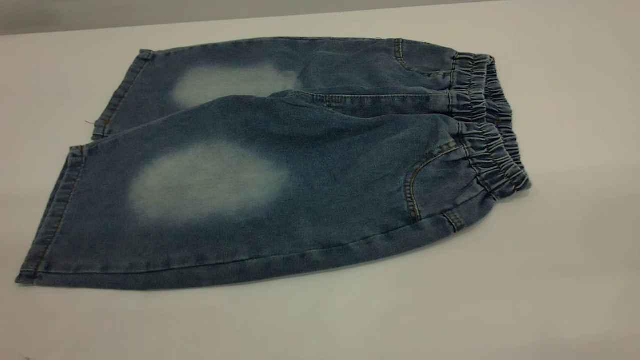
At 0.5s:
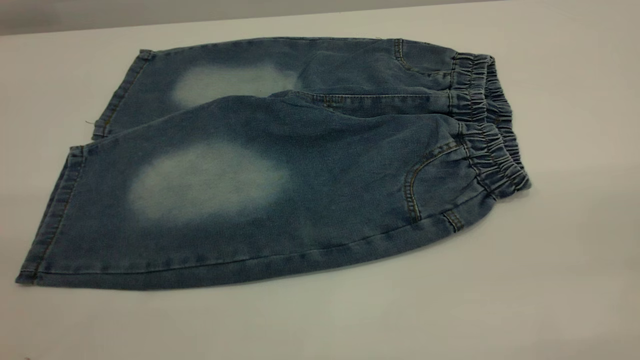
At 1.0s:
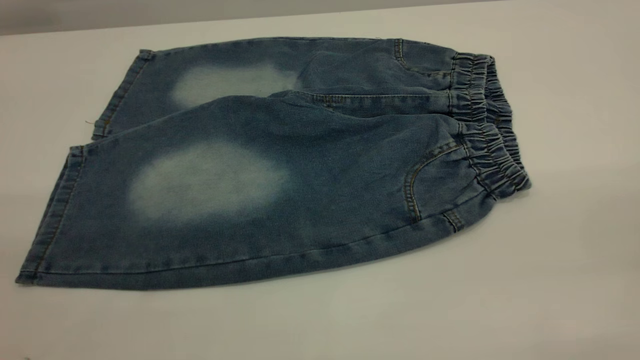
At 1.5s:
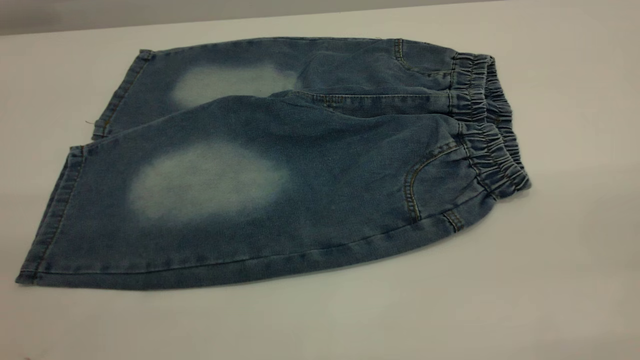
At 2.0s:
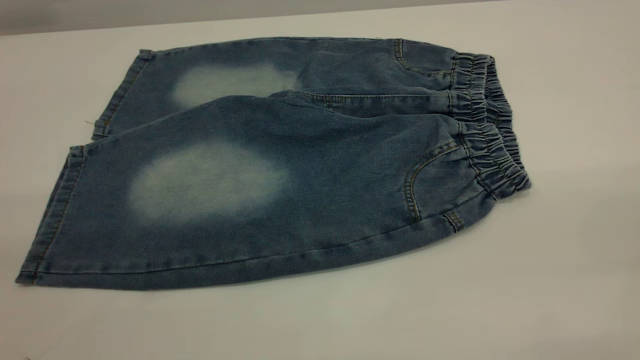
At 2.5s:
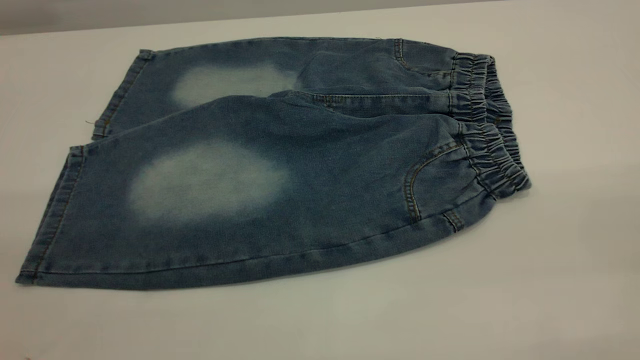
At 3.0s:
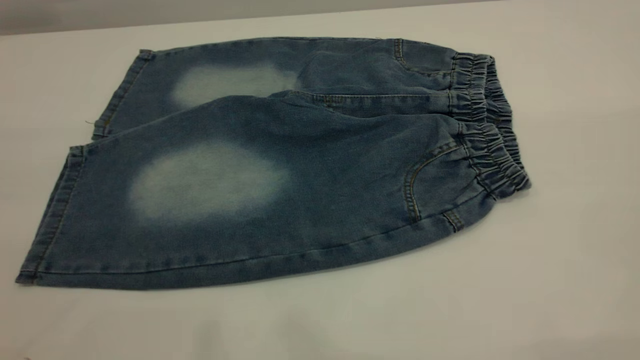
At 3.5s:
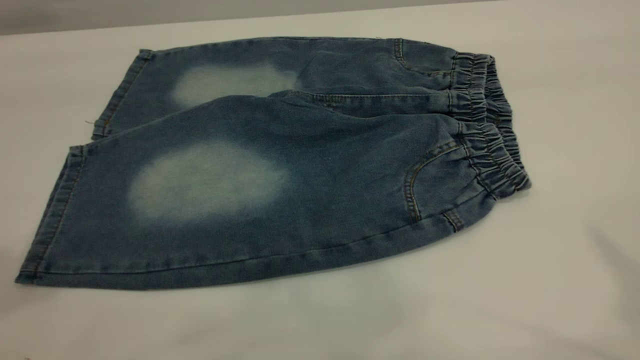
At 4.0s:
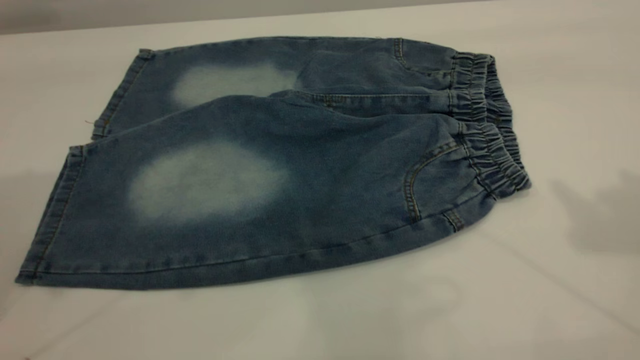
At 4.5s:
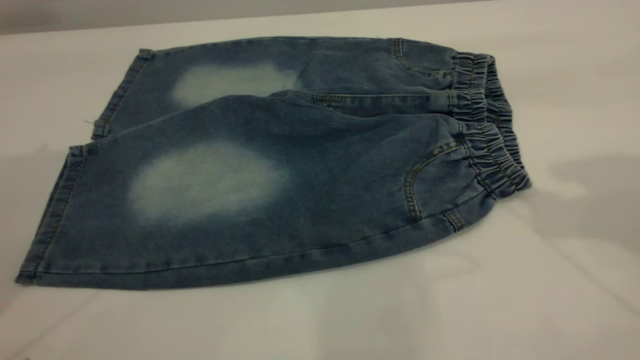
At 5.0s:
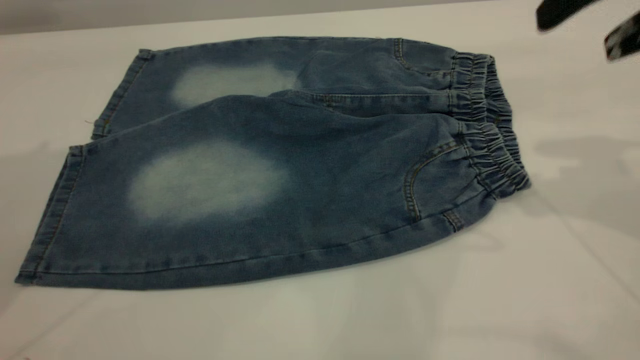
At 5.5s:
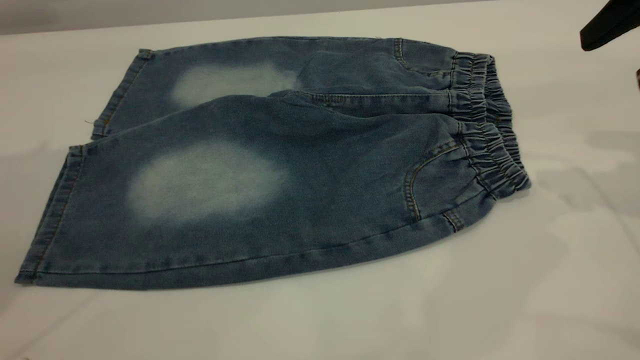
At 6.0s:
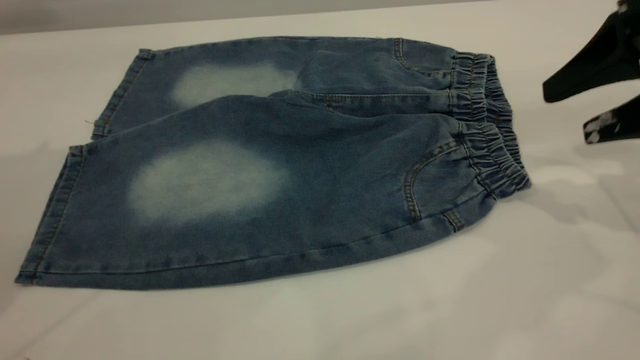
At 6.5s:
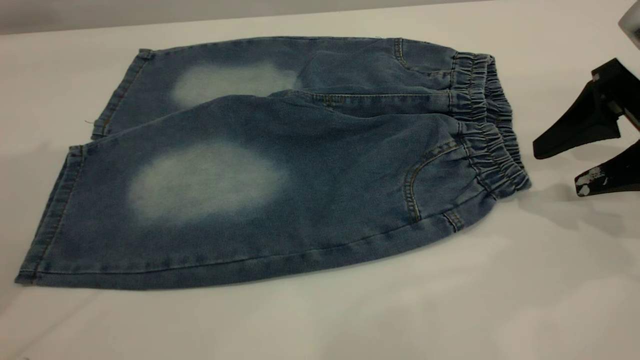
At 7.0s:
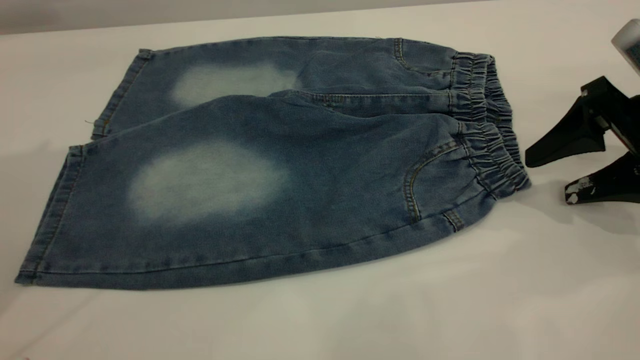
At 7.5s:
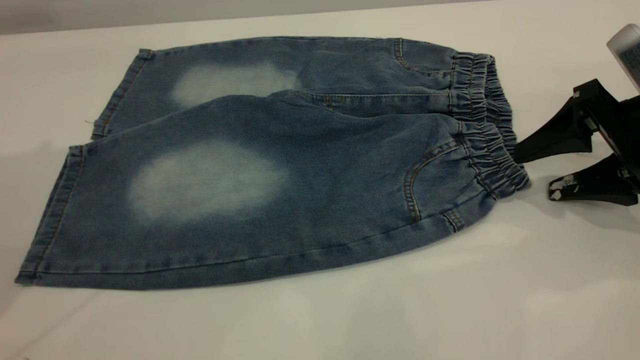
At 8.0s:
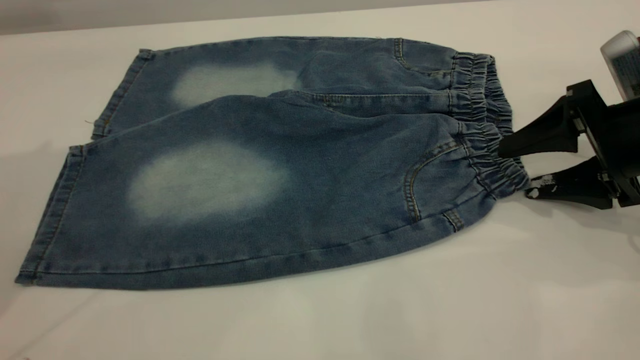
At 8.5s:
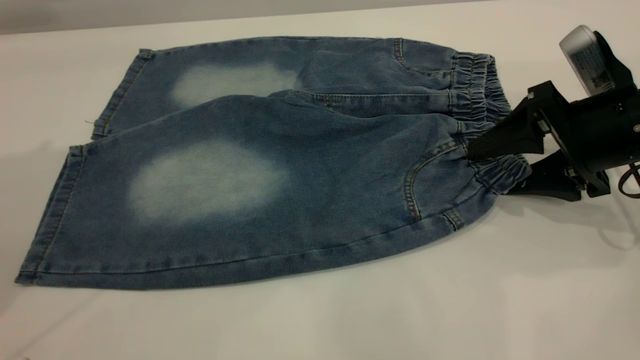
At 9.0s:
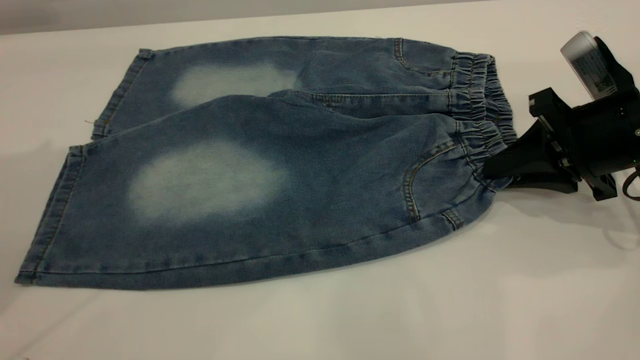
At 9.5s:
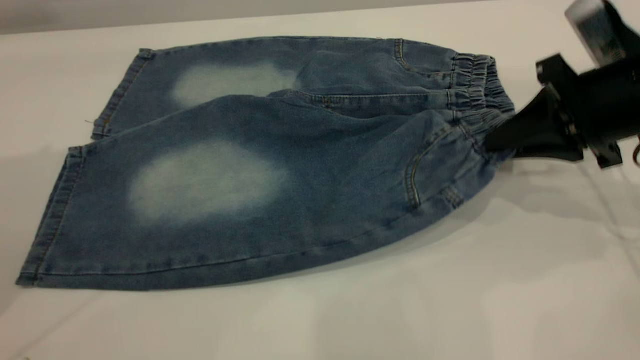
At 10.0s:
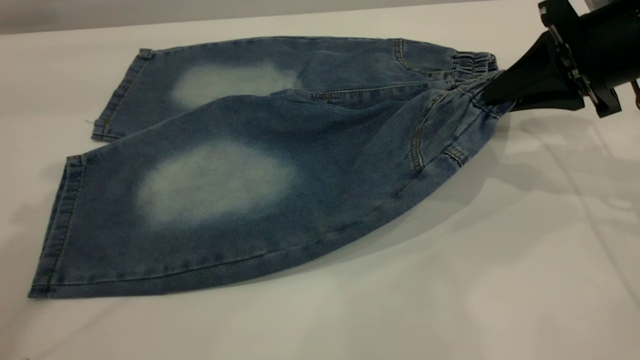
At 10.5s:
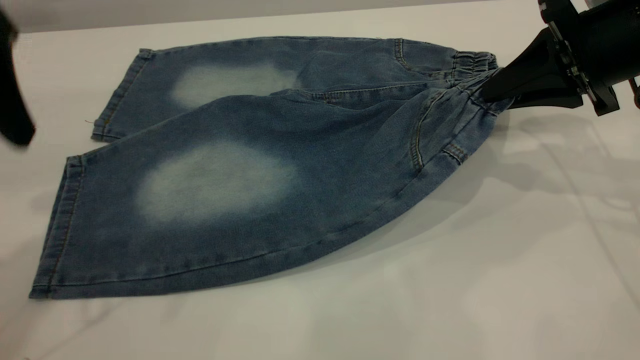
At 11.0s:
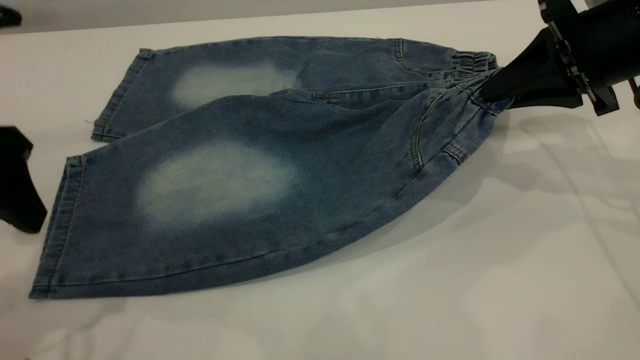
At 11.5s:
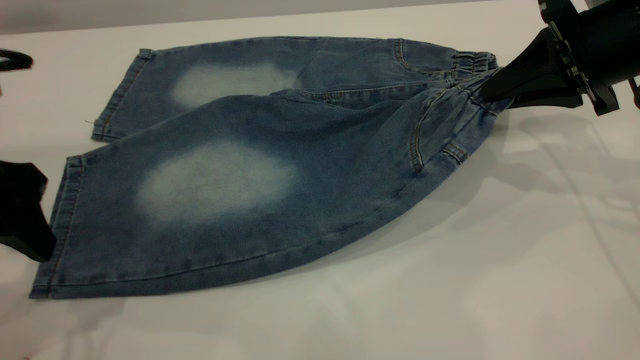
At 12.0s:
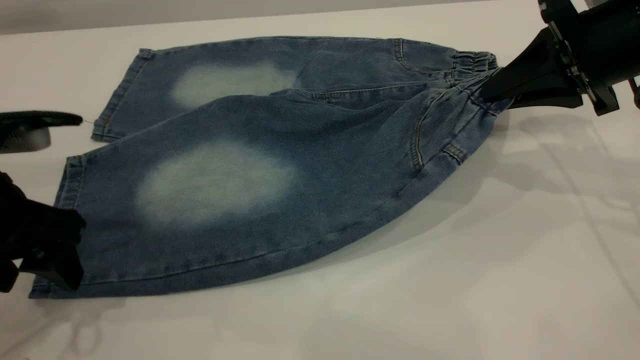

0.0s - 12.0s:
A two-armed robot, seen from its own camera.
0.0s - 2.0s: Both grippers stay about where they are.
4.0s - 6.0s: The right gripper moves downward, approximately 20 cm.
6.0s - 8.0s: The right gripper is displaced downward by some 10 cm.
8.0s - 10.0s: The left gripper ends up roughly 5 cm from where it was, while the right gripper is displaced upward by approximately 5 cm, and closes its fingers.
10.0s - 12.0s: The left gripper heads downward, covering approximately 20 cm.

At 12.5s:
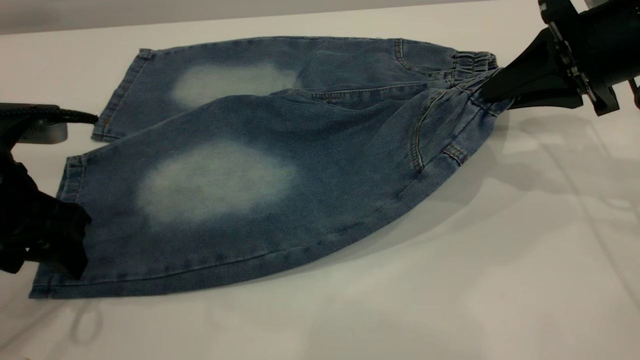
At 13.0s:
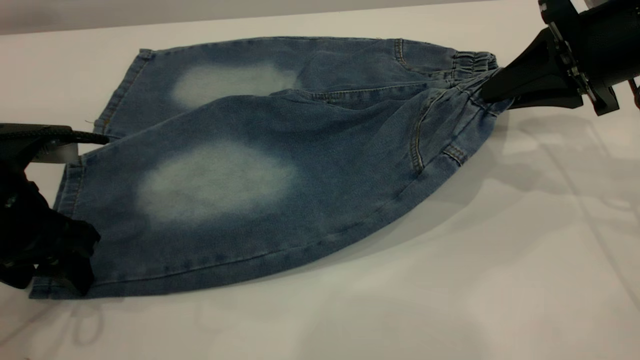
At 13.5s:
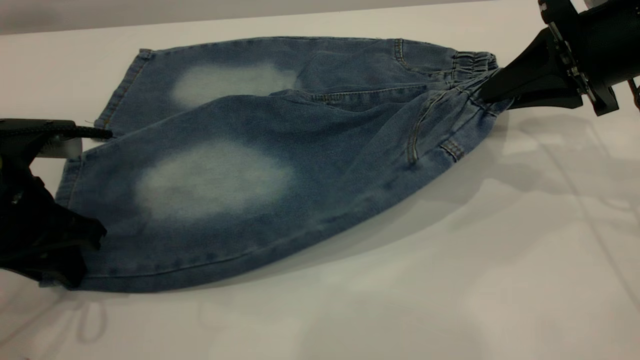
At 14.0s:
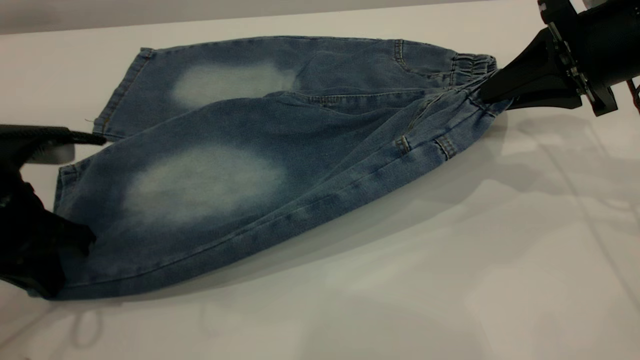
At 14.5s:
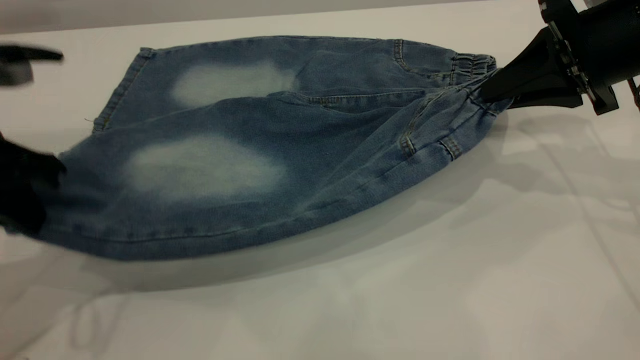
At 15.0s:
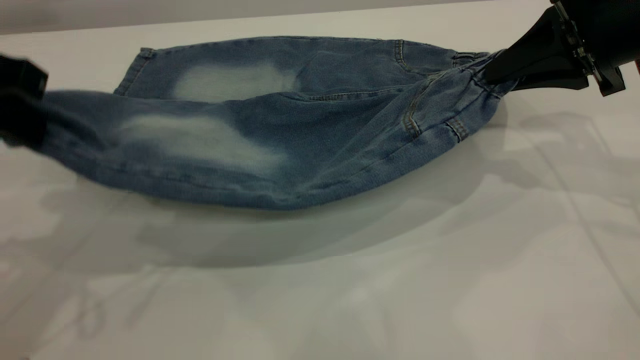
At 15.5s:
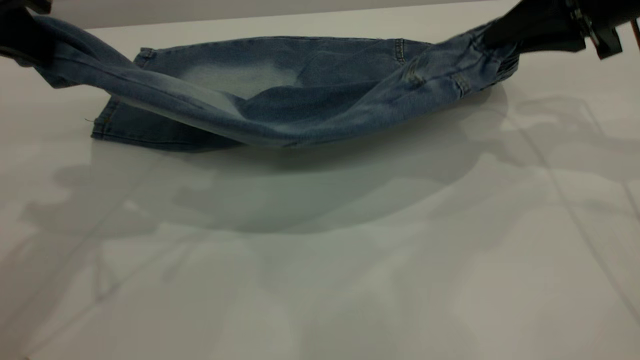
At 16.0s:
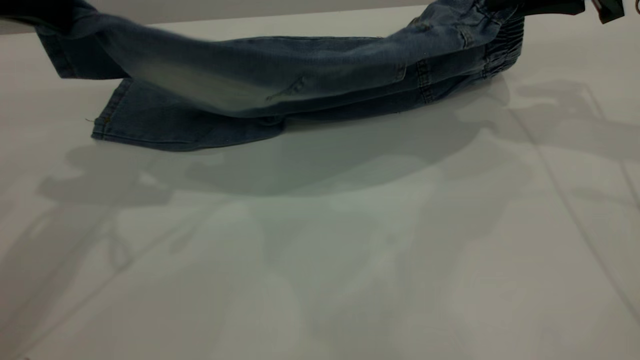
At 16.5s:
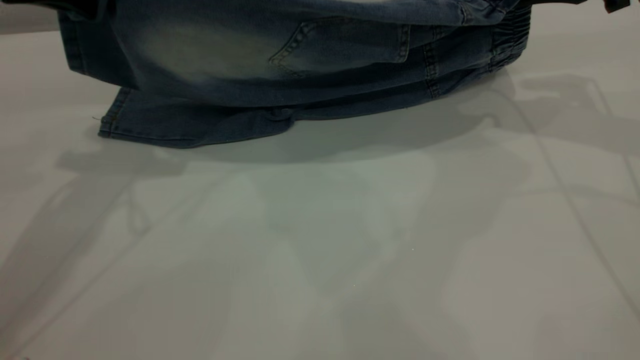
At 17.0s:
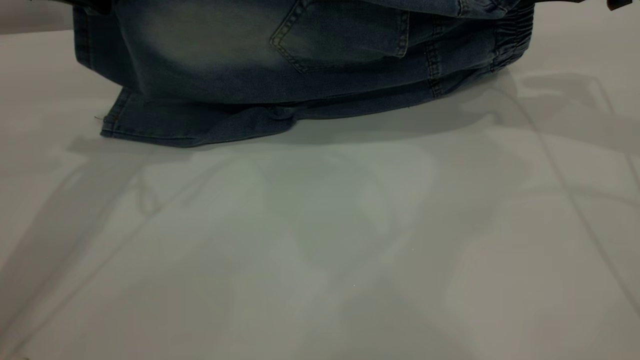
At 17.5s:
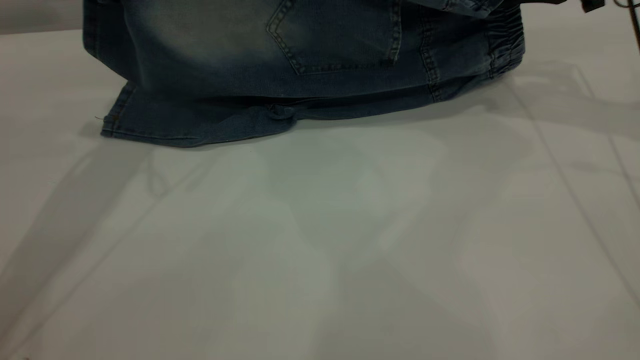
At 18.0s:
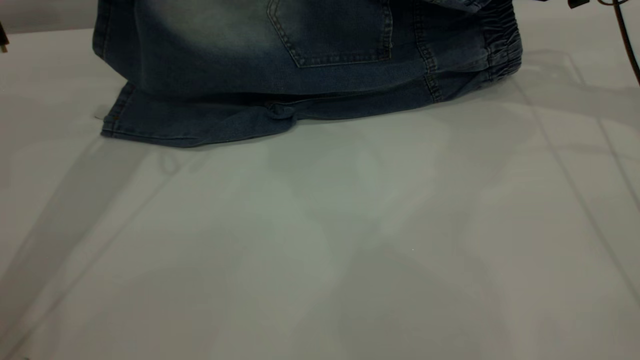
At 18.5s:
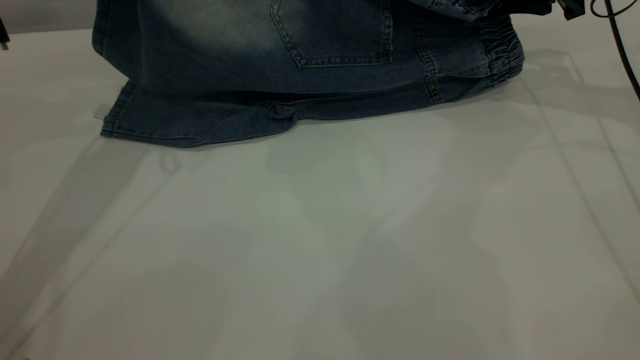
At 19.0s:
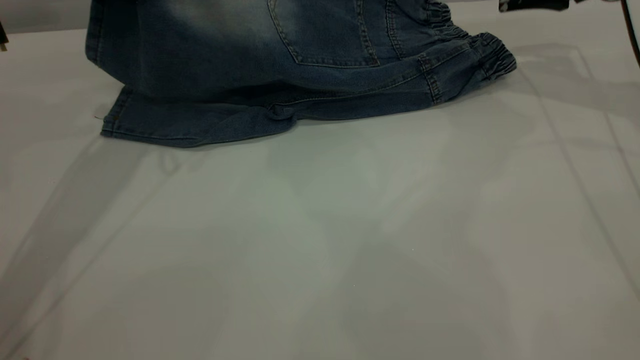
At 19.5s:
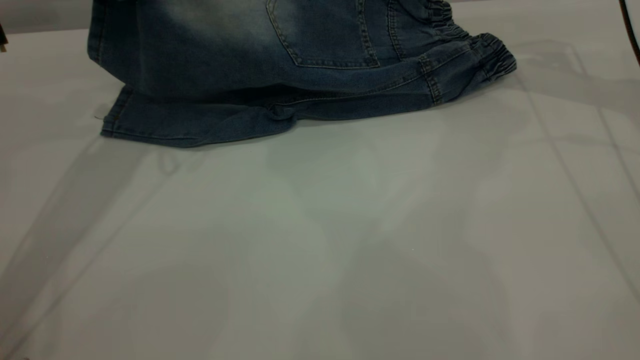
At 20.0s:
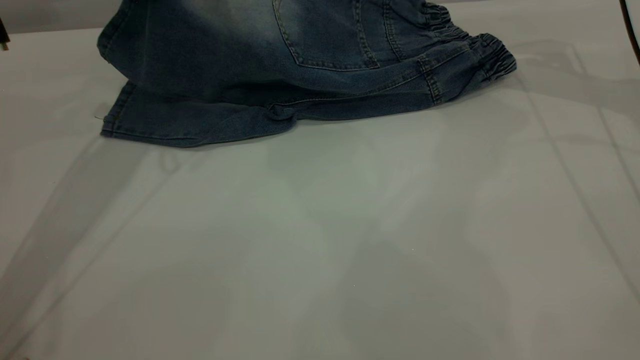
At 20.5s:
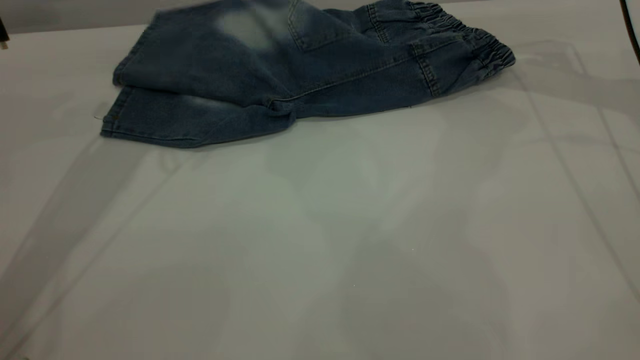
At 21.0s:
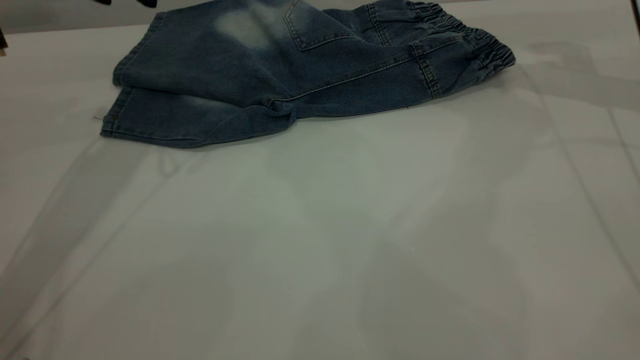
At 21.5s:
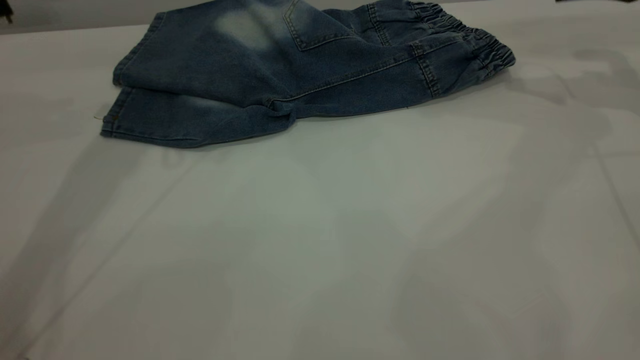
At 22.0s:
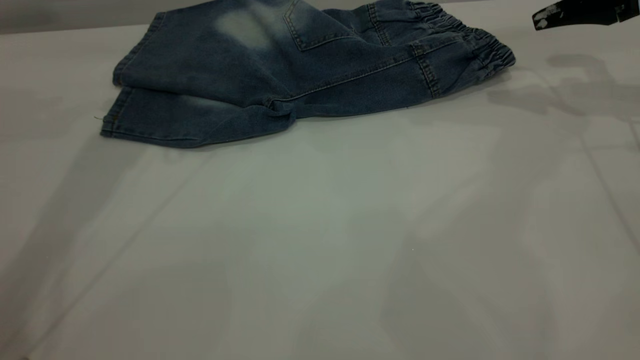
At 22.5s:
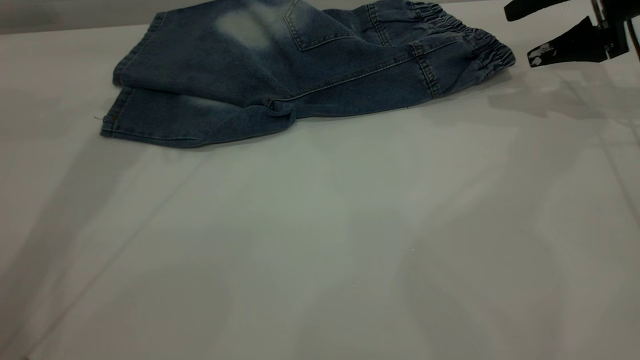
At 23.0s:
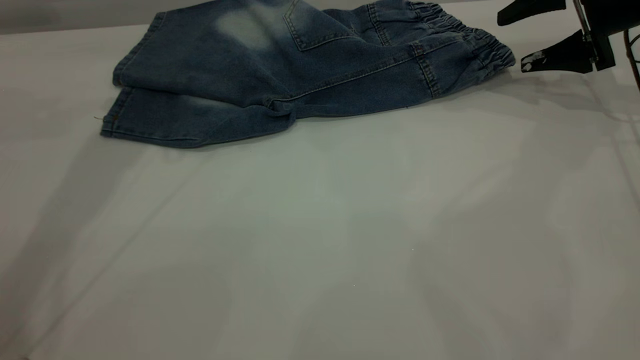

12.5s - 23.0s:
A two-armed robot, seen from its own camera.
Step, 12.5s - 20.5s: Fold the bottom of the pants upward.
12.5s - 14.5s: The left gripper moves upward, roughly 5 cm, and closes.
14.5s - 16.5s: The left gripper travels forward and upward by roughly 15 cm, while the right gripper travels forward and upward by about 10 cm.
16.5s - 19.0s: Both grippers travel together forward, about 5 cm. The right gripper opens.
19.0s - 21.0s: The left gripper opens up.
21.0s - 23.0s: The right gripper shifts some 10 cm downward.
